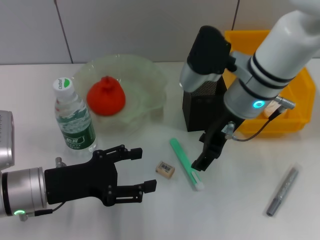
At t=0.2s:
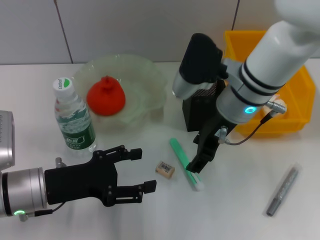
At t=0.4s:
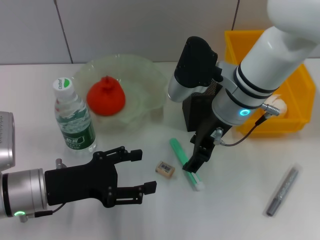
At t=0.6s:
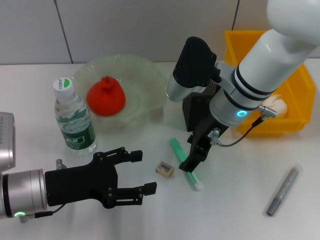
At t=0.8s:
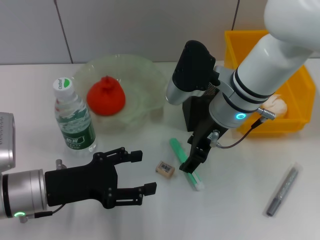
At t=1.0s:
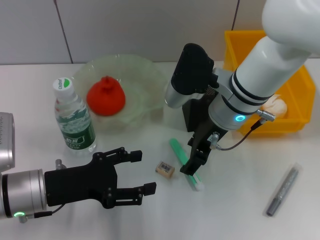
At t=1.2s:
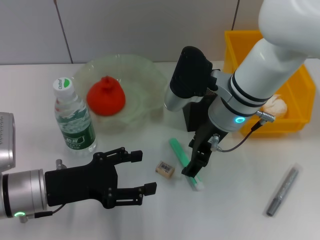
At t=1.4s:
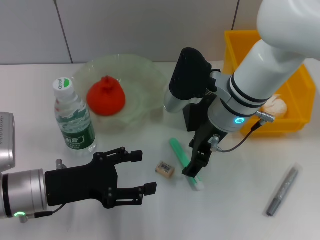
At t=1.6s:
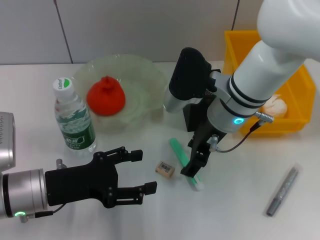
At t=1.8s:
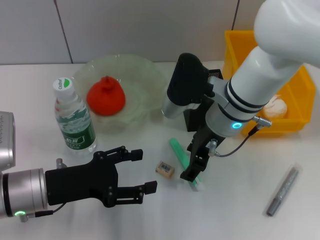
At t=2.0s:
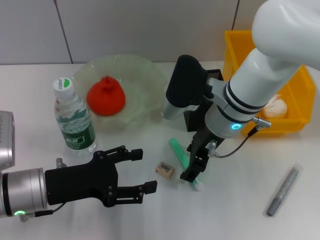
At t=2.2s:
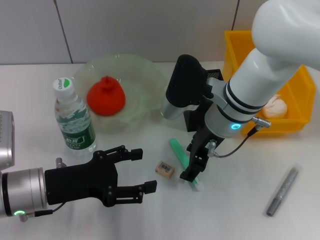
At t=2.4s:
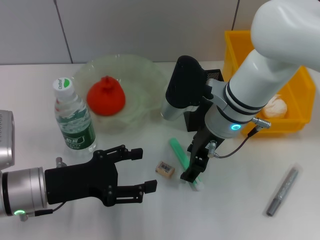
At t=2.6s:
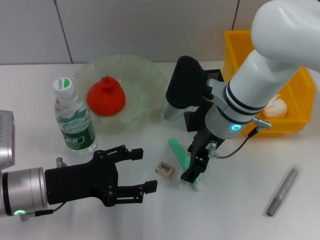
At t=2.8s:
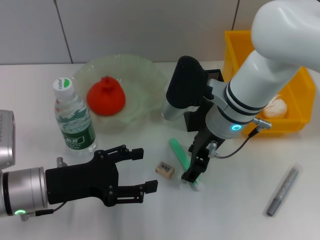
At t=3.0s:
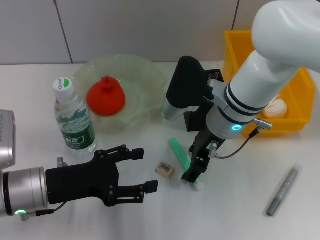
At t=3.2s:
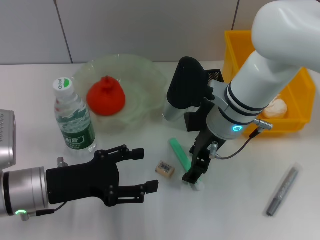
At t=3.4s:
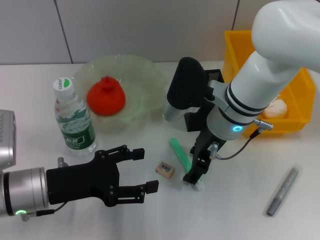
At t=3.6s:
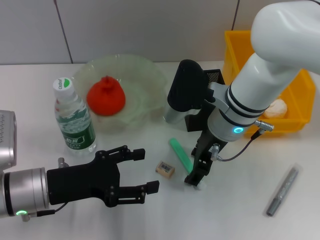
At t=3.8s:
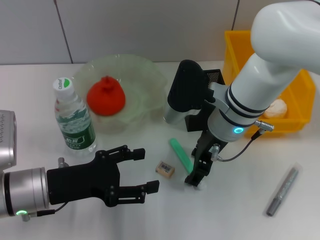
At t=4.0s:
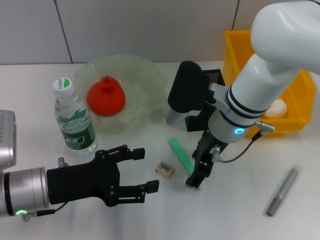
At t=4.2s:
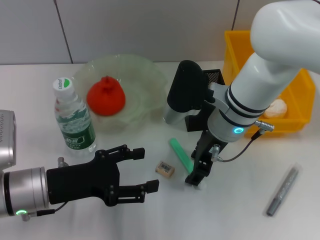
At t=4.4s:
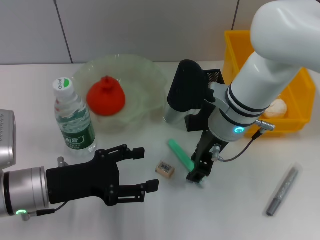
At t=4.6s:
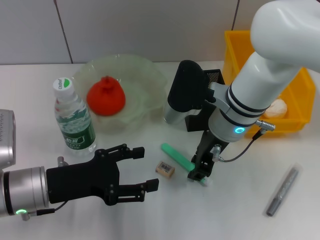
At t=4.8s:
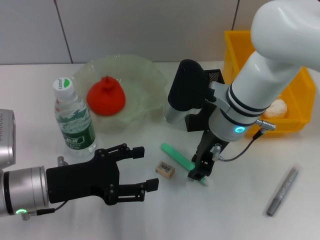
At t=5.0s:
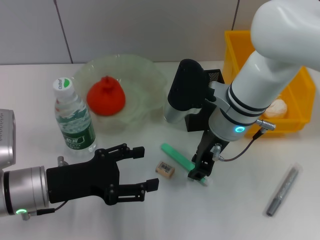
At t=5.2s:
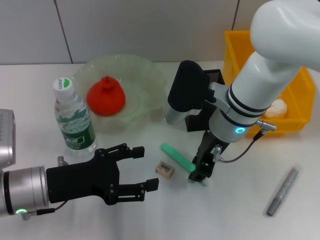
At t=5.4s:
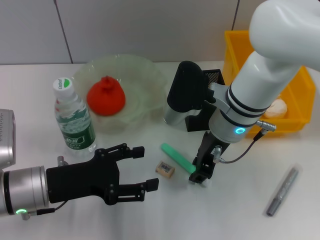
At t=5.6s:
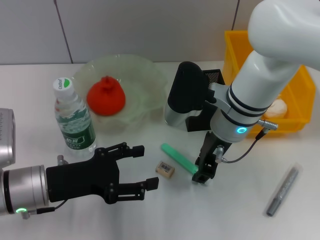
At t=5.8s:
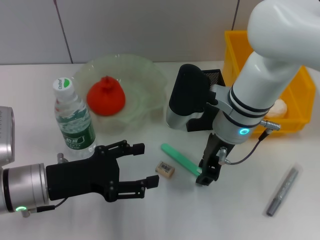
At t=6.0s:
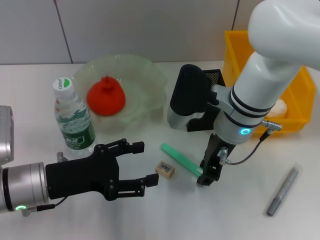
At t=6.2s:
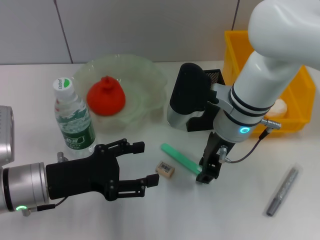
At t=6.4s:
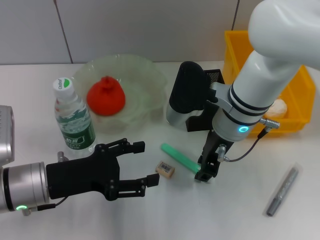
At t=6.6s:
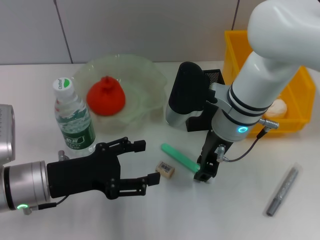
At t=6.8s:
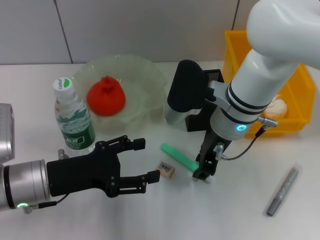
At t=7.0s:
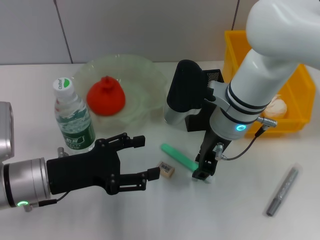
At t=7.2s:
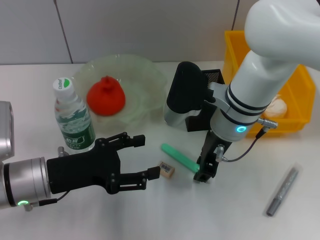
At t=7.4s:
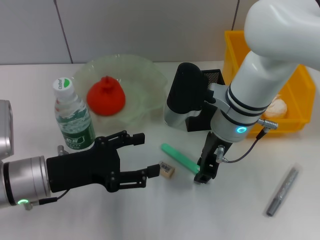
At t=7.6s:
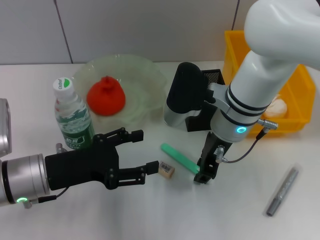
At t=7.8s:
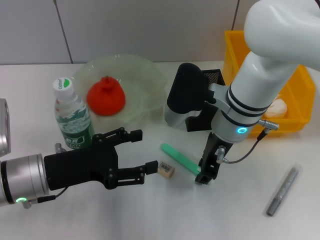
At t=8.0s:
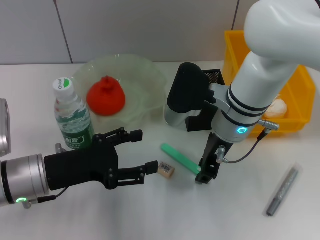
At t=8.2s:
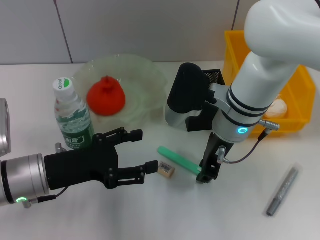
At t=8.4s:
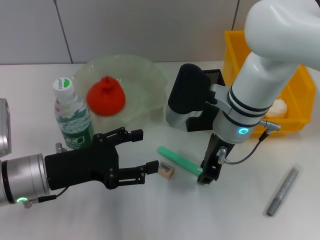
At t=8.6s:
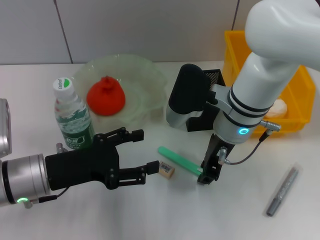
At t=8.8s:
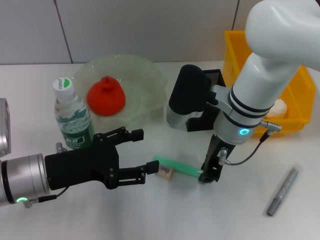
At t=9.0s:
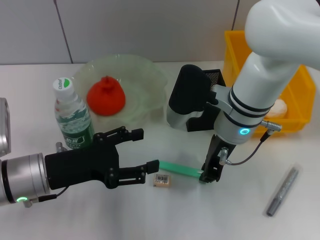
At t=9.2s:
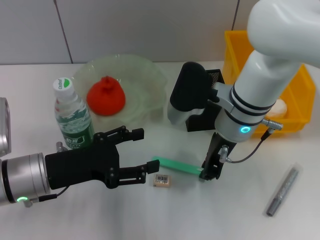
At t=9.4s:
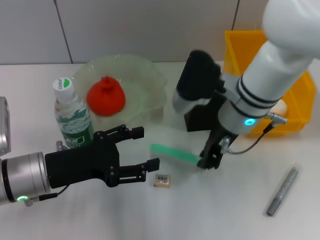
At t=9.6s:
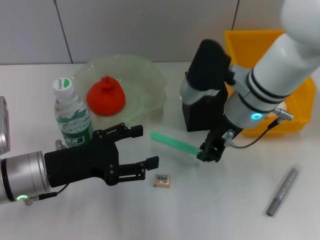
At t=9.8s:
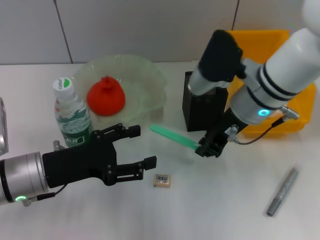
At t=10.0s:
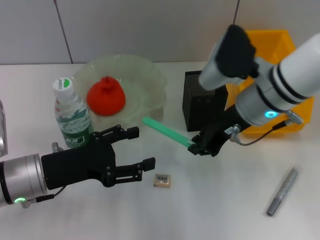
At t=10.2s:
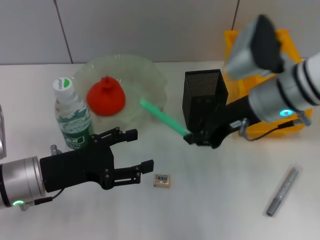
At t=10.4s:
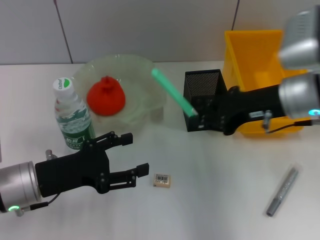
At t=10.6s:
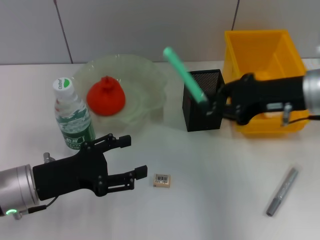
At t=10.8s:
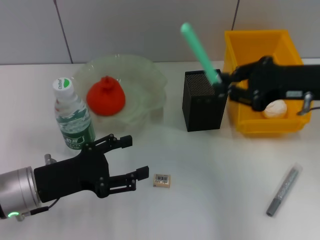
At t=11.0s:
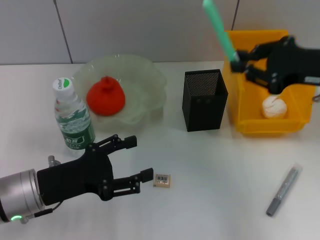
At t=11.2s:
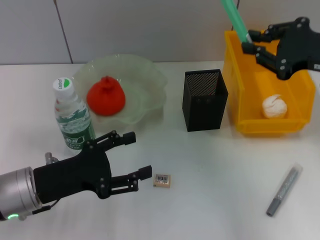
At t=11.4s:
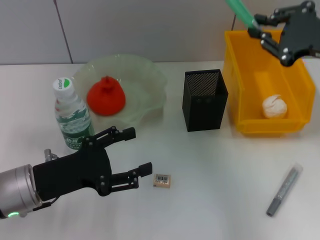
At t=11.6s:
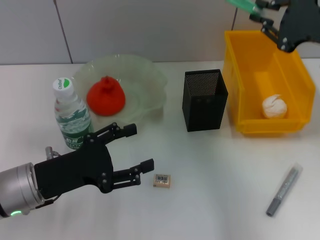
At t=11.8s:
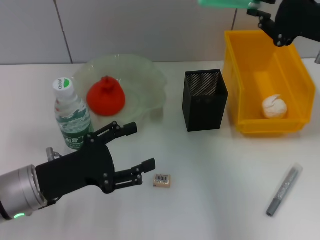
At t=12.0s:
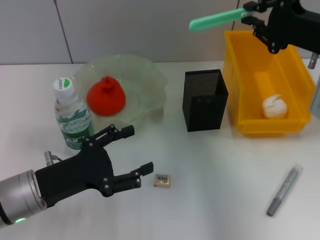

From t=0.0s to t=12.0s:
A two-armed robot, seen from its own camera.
Step, from t=0.0s to t=8.8s: Grab the blue utility knife with the right hand.
From t=0.0s to t=1.6s: The grippers stay close to where they were, moving slightly.
From t=1.6s to t=4.4s: Neither gripper changes place.
From t=4.4s to t=6.0s: The right gripper closes up.
From t=6.0s to t=9.0s: Both grippers stay about where they are.
From t=9.0s to t=10.4s: The right gripper travels to the right by approximately 10 cm.
From t=10.4s to t=12.0s: The right gripper changes place by roughly 5 cm.

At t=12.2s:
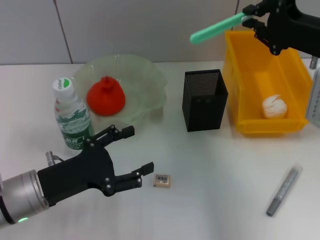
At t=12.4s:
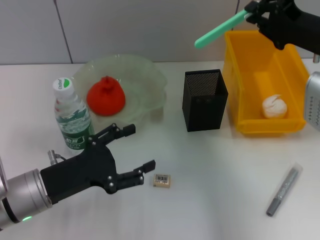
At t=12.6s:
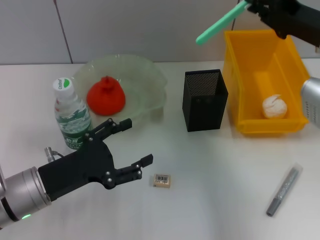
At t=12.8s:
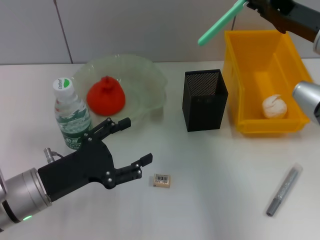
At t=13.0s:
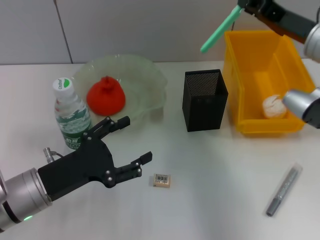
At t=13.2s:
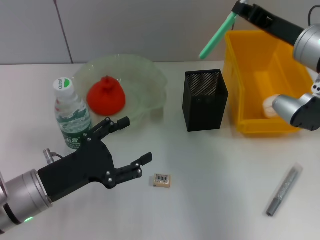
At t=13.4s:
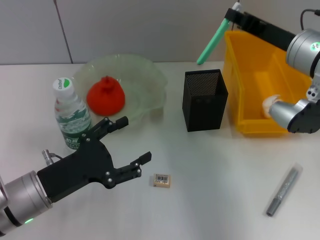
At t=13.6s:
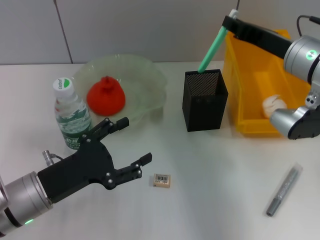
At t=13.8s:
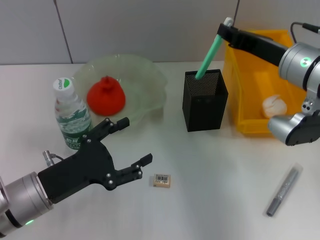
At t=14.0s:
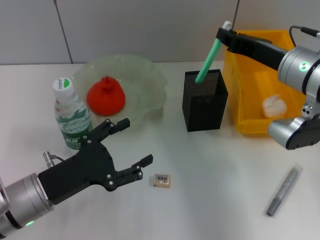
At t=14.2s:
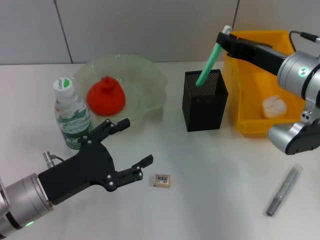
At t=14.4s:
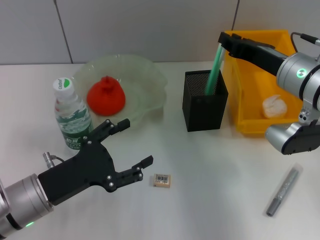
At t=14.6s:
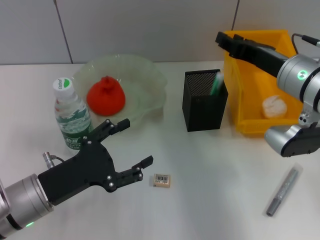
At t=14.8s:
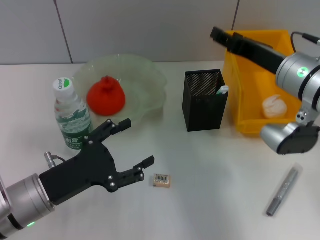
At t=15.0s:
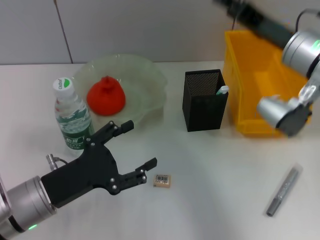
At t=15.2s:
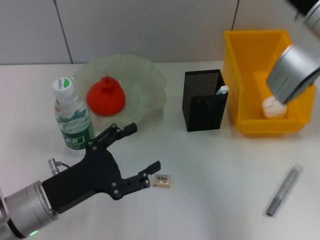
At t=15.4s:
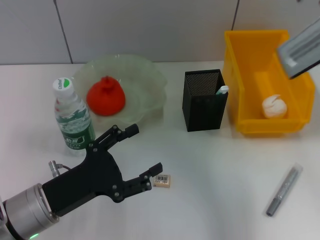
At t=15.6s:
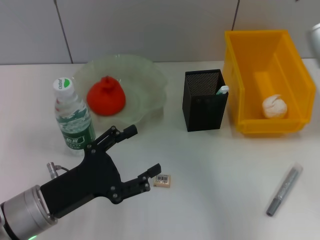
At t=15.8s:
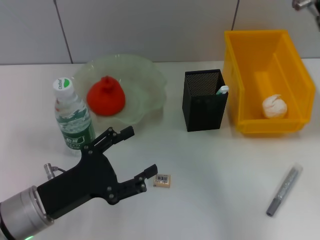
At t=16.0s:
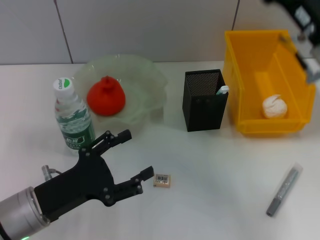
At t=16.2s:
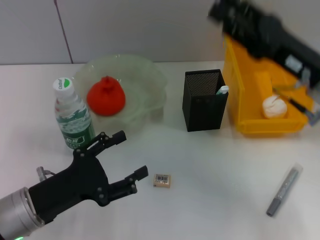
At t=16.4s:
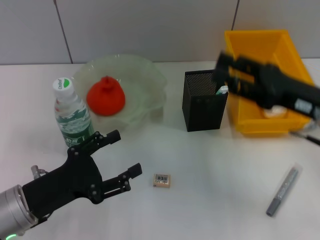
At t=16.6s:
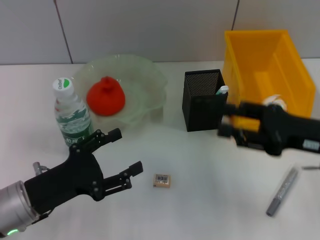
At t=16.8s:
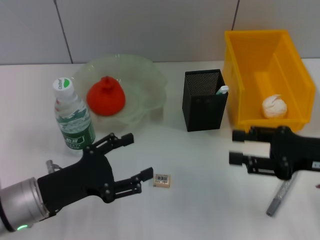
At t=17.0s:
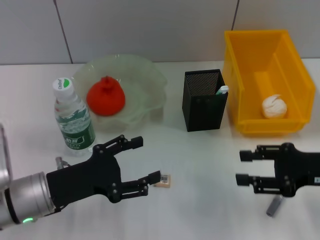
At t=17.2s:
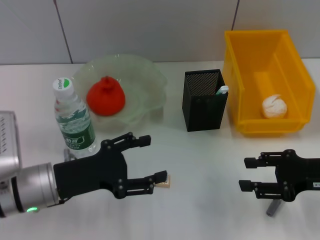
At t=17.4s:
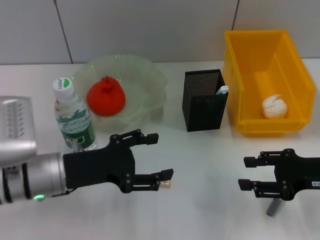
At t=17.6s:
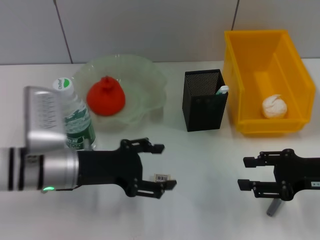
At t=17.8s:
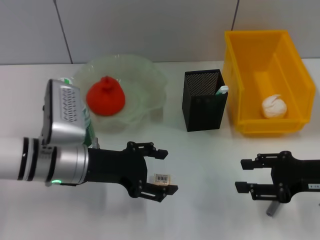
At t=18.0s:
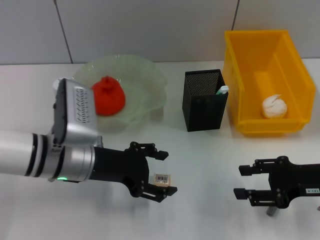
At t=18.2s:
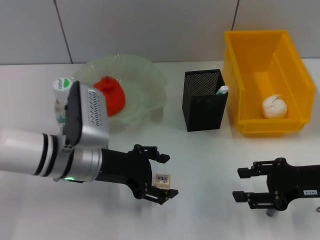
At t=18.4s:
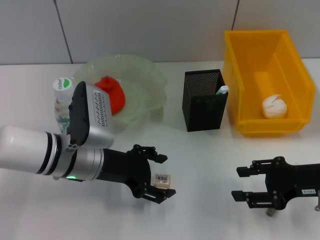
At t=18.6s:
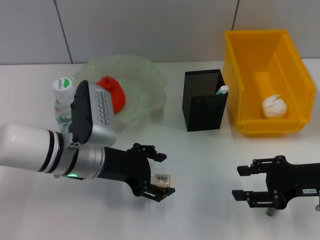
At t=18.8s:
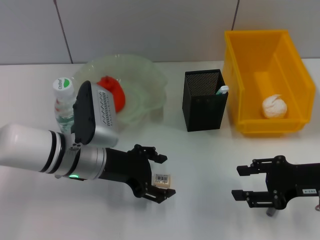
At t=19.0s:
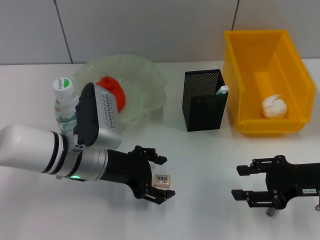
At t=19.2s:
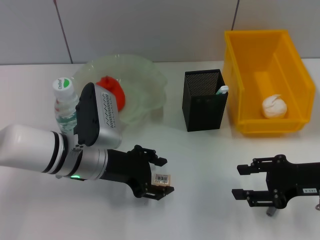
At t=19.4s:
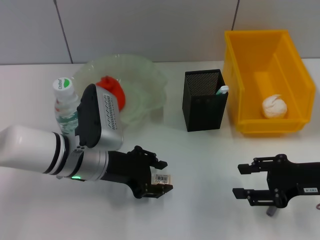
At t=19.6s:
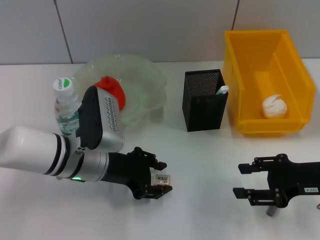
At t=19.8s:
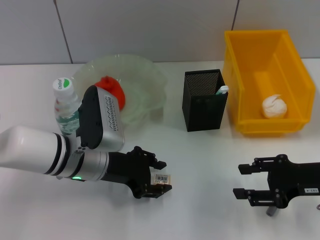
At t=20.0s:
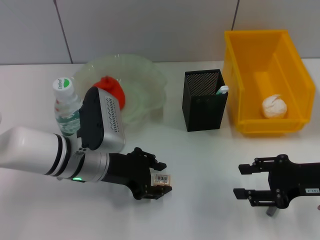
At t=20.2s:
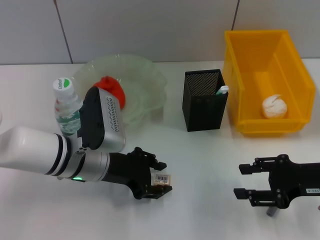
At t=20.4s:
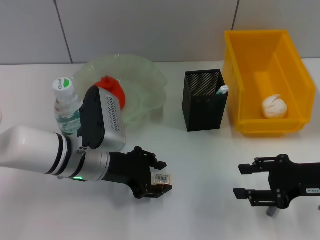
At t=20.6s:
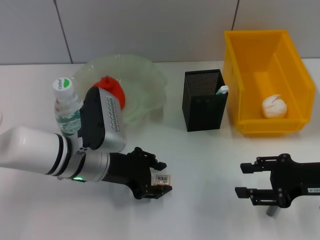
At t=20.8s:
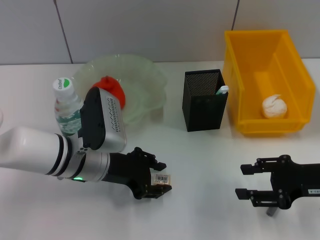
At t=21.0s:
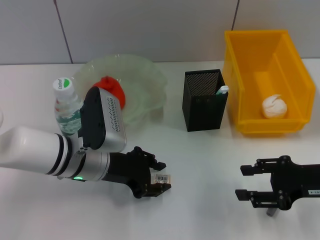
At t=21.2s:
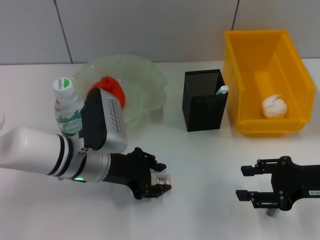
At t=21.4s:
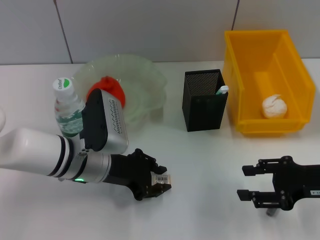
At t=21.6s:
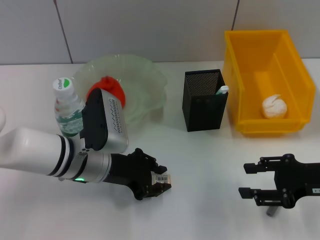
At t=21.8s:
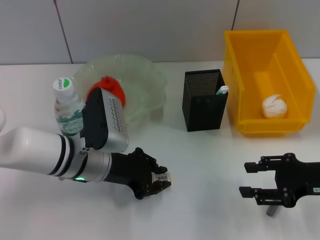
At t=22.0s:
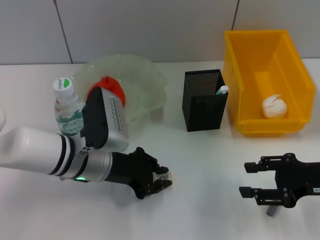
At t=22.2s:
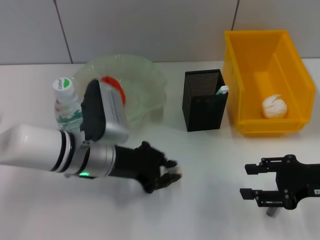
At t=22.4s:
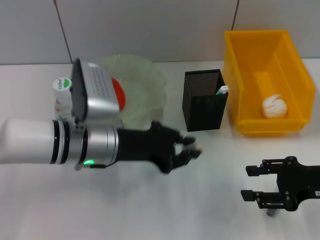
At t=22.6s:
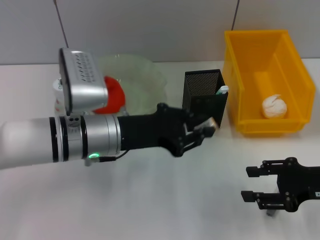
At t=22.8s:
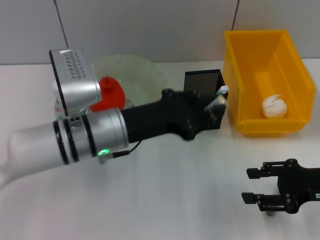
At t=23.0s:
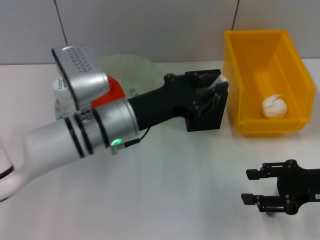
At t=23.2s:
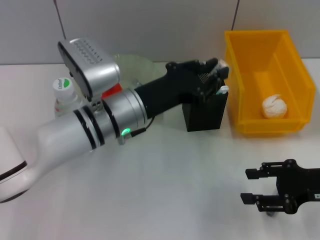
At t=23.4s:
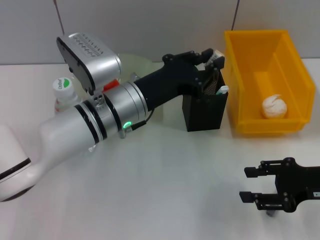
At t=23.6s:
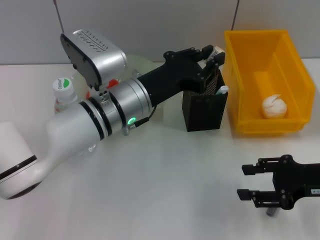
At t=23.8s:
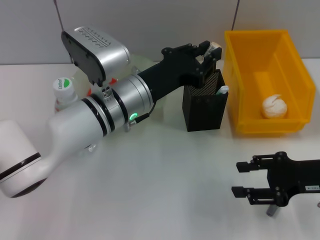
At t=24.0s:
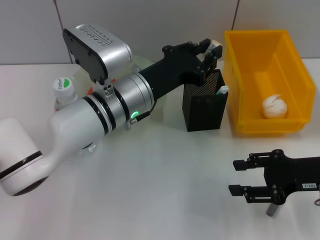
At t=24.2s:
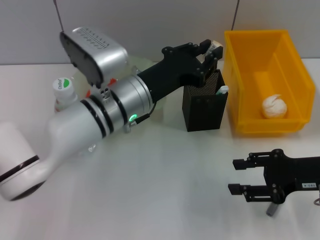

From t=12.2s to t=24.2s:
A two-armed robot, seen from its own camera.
Step, from t=12.2s to t=14.6s: Place the blue utility knife into the pen holder with the right hand.
Step, from t=14.8s to t=21.8s: Grab the eraser with the left hand.
From t=12.2s to t=13.8s: The right gripper changes place by approximately 5 cm.
From t=13.8s to t=15.2s: The right gripper is displaced upward by approximately 5 cm, and opens.
From t=15.2s to t=16.6s: The right gripper is displaced downward, backward and to the right by about 15 cm.
From t=16.6s to t=18.2s: The left gripper moves forward and to the right, about 10 cm.
From t=18.2s to t=19.8s: The left gripper closes up.
From t=19.8s to t=21.2s: Both grippers stay put.
From t=21.2s to t=22.6s: The left gripper ends up about 5 cm from where it was, and closes.
From t=22.6s to t=24.2s: The left gripper shifts by roughly 5 cm.
